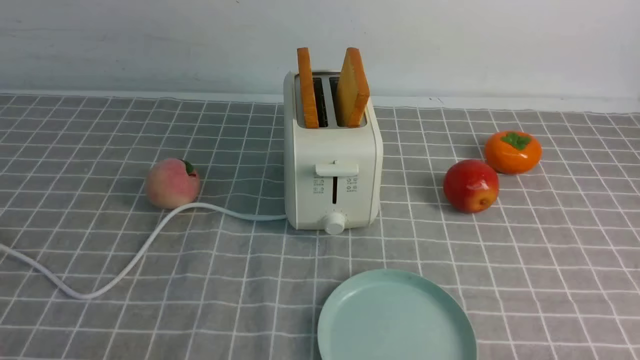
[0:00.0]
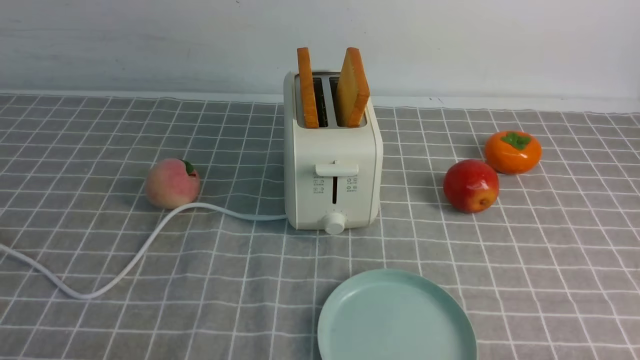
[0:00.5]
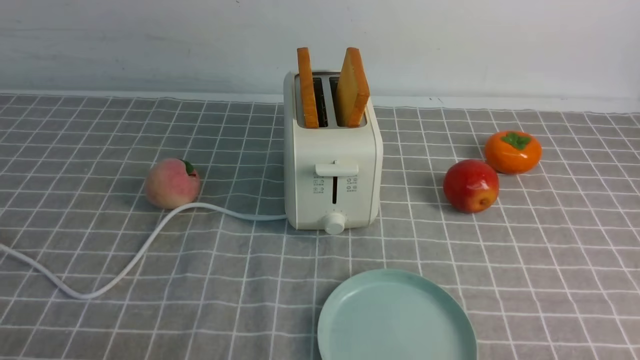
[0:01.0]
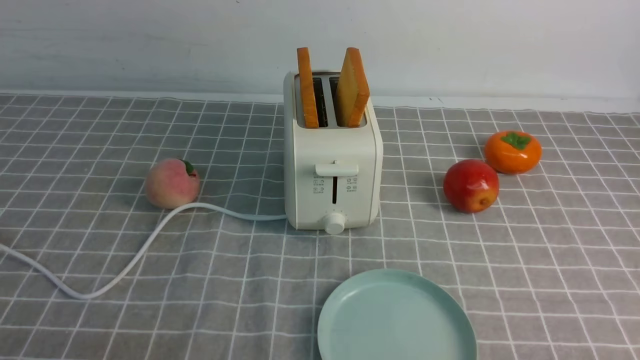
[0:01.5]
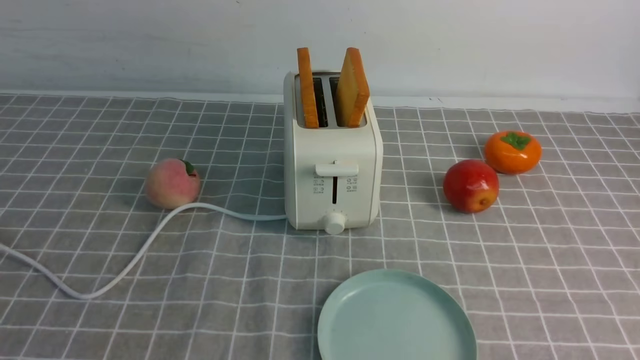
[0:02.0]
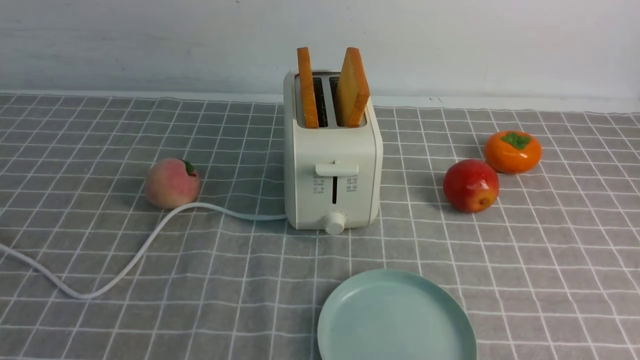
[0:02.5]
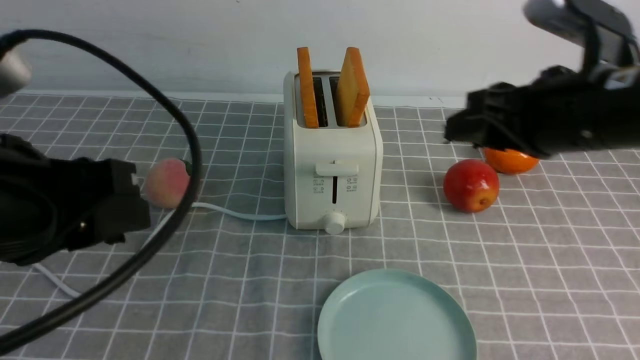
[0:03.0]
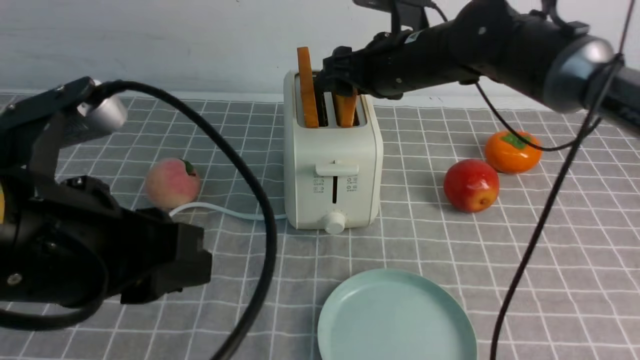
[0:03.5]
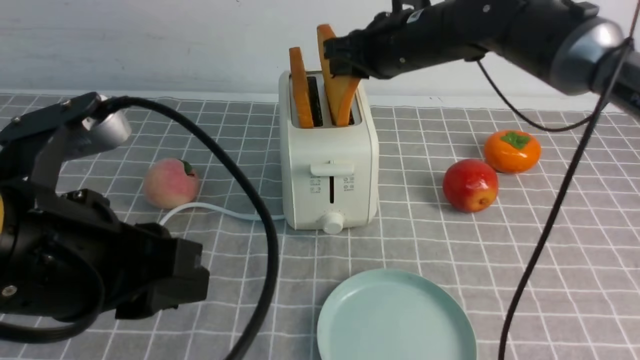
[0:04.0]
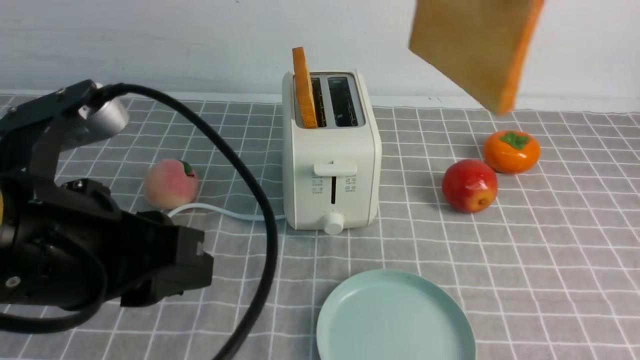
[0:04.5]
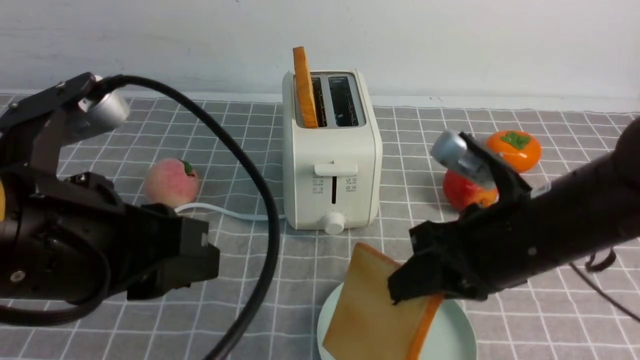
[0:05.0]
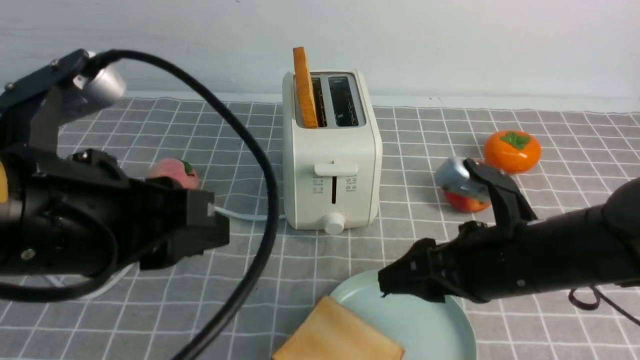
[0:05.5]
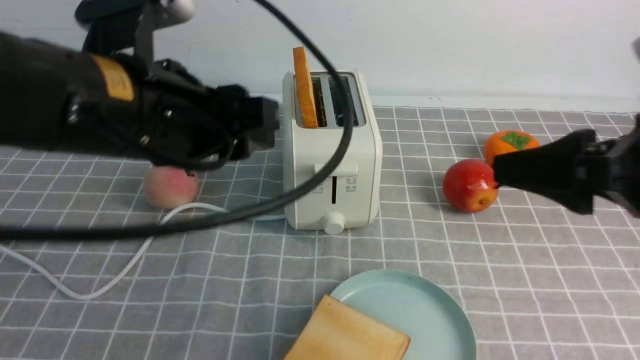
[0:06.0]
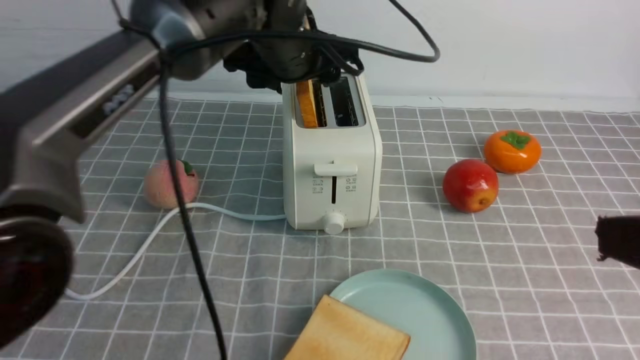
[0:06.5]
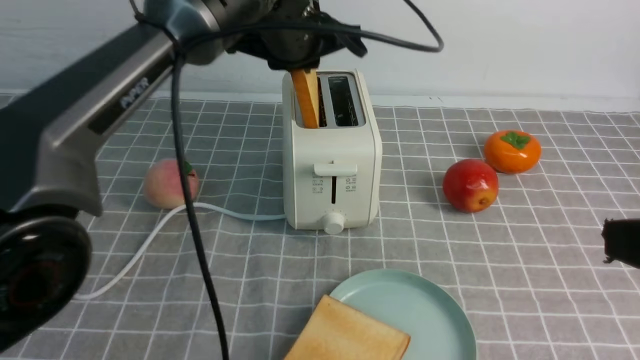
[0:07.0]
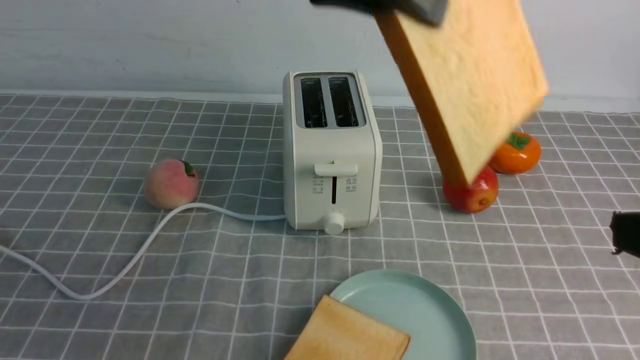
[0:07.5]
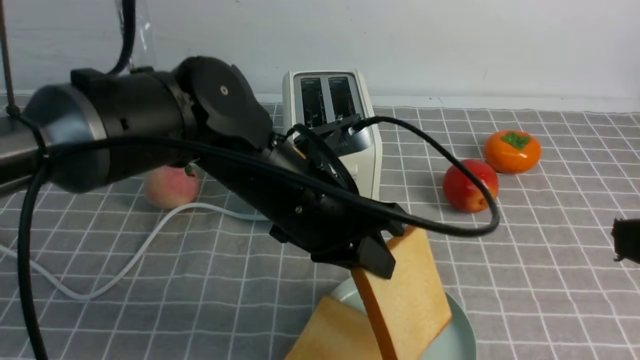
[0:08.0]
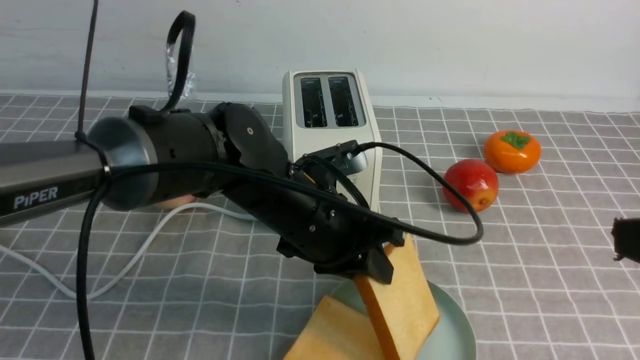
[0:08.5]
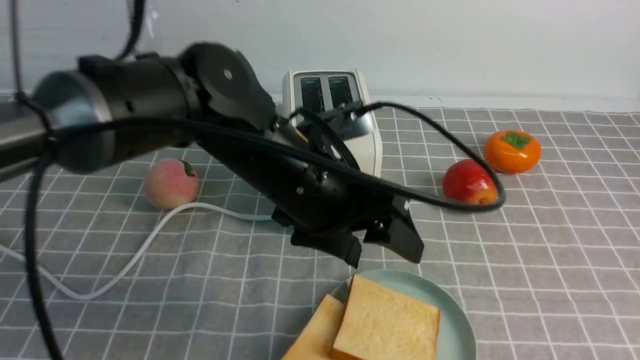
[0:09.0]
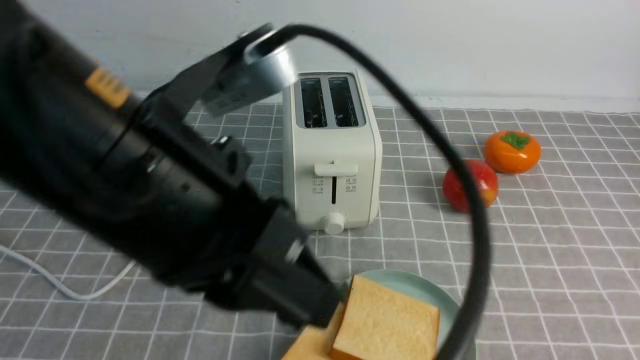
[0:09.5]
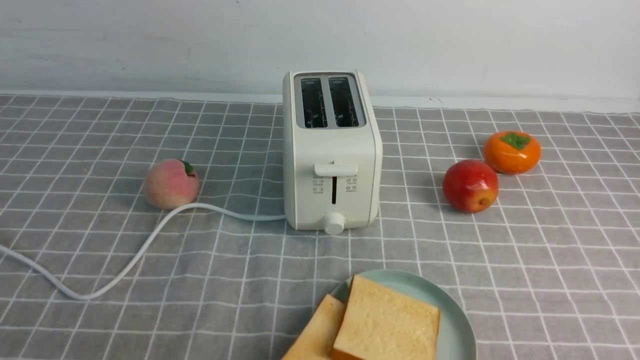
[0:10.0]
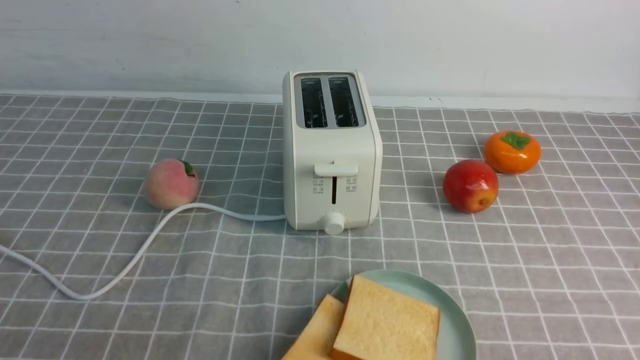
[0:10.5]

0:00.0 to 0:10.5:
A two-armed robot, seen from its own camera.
Task of the whole recording: take toasted bread from bread machine on grey coffee table place on plate.
Step, 0:00.0 to 0:04.0: use the right arm to take out a slice of bread.
Step, 0:04.5 to 0:05.5: use the right arm to put a slice of bread into the plate.
Step, 0:06.0 to 0:07.0: use the left arm to take out a slice of bread.
Step, 0:07.5 to 0:09.0: use the left arm to put a slice of bread into the empty plate.
0:02.0 to 0:04.0: The right gripper moves forward and to the left, roughly 40 cm, while the left gripper shifts some 15 cm forward and to the right.
0:04.0 to 0:06.5: The right gripper goes about 35 cm backward and to the right, and opens; the left gripper is displaced forward and to the right by approximately 30 cm, and opens its fingers.
0:06.5 to 0:08.5: The left gripper shifts about 15 cm backward and downward, and closes.
0:08.5 to 0:10.5: The right gripper shifts some 15 cm downward and backward, and closes up; the left gripper is displaced backward and to the left by about 30 cm, and closes.
